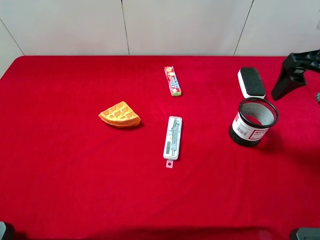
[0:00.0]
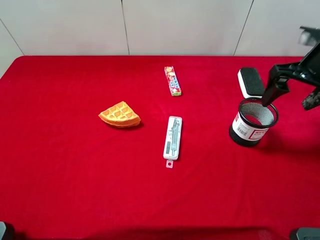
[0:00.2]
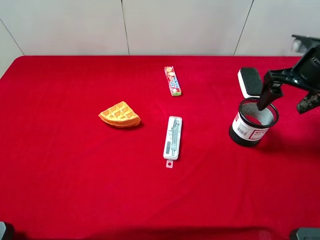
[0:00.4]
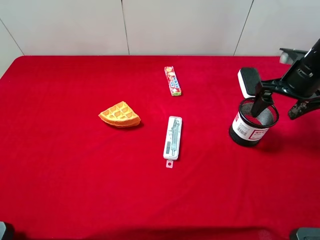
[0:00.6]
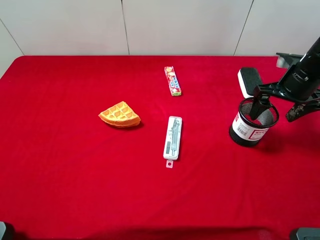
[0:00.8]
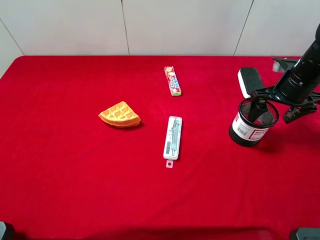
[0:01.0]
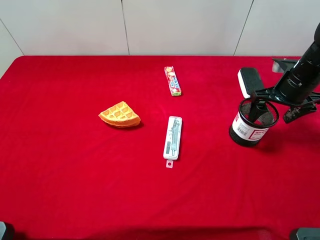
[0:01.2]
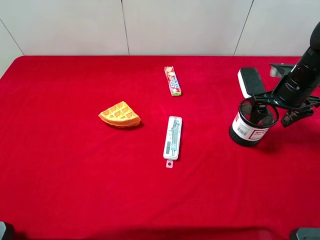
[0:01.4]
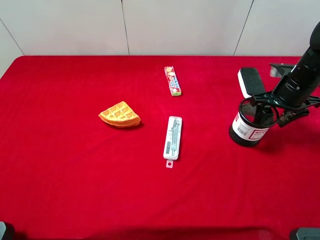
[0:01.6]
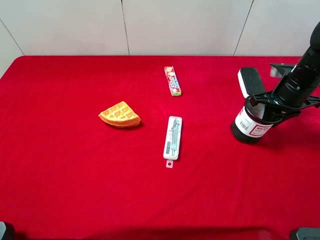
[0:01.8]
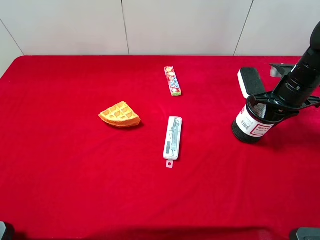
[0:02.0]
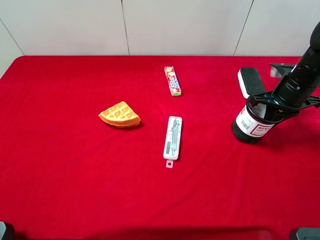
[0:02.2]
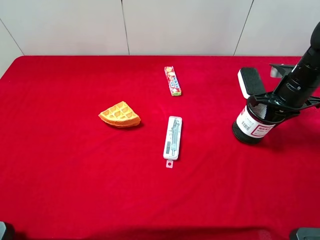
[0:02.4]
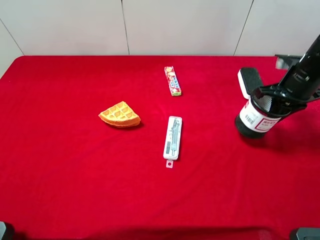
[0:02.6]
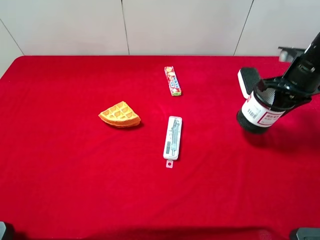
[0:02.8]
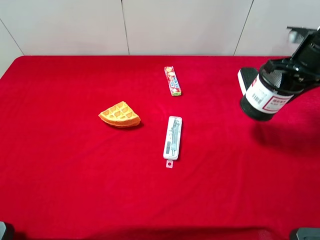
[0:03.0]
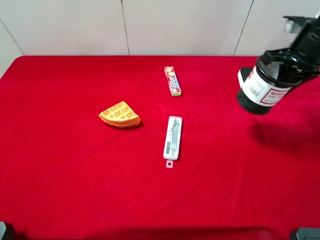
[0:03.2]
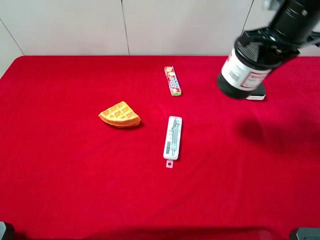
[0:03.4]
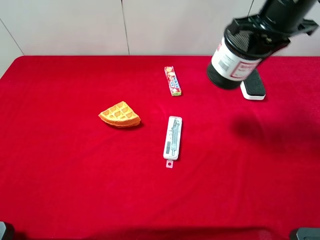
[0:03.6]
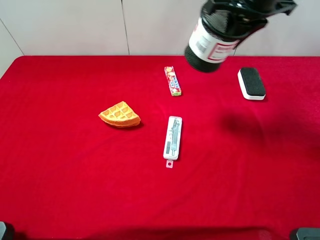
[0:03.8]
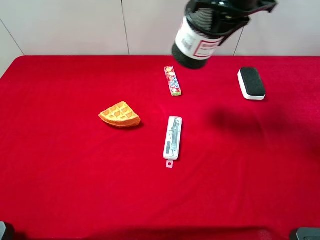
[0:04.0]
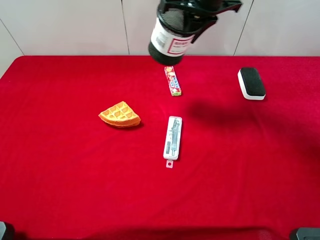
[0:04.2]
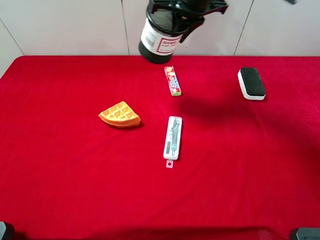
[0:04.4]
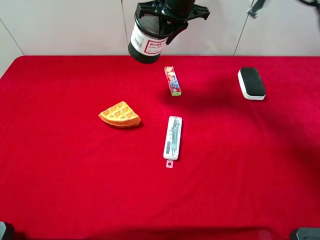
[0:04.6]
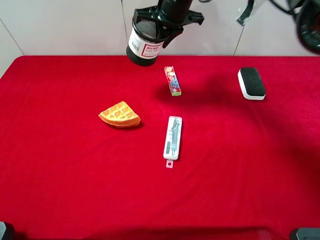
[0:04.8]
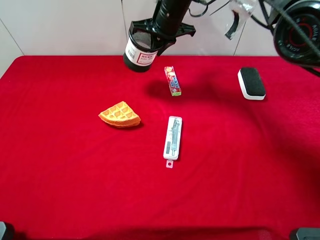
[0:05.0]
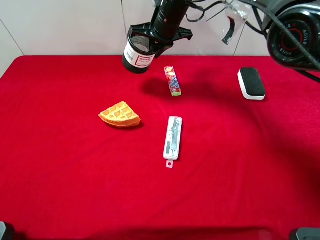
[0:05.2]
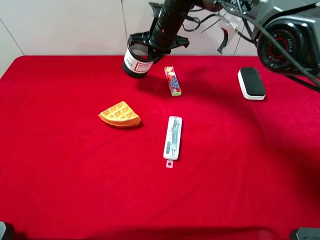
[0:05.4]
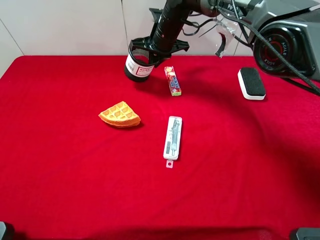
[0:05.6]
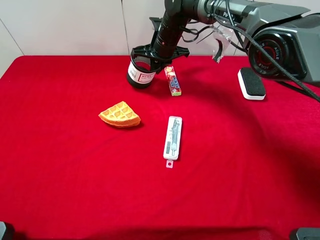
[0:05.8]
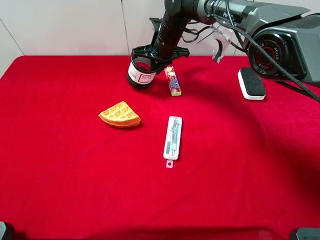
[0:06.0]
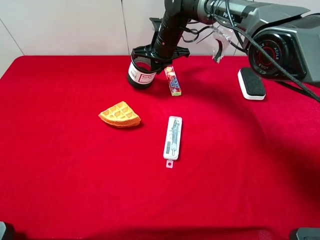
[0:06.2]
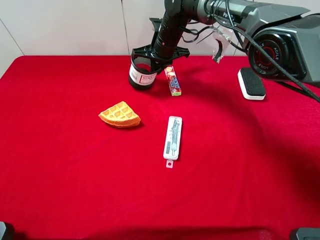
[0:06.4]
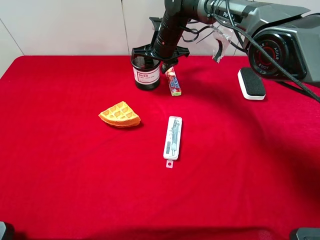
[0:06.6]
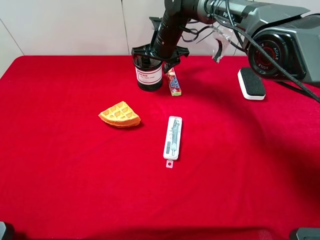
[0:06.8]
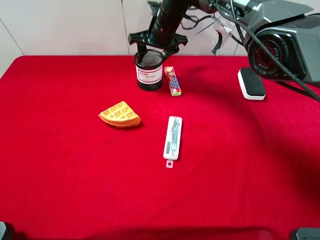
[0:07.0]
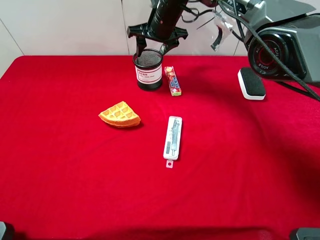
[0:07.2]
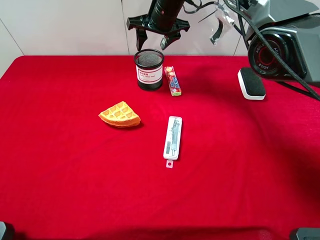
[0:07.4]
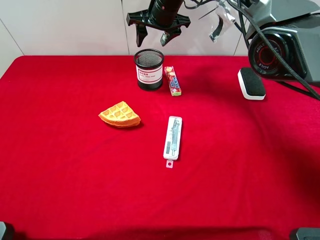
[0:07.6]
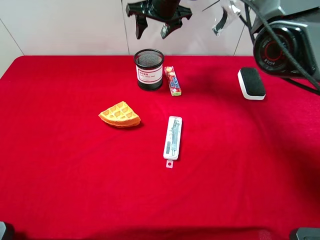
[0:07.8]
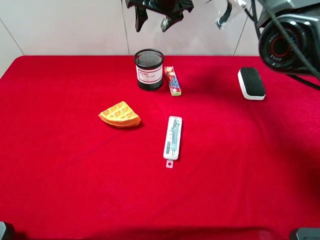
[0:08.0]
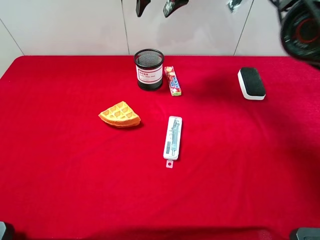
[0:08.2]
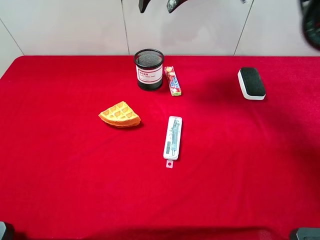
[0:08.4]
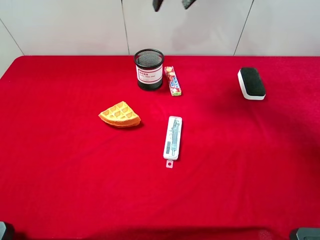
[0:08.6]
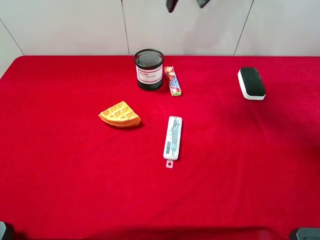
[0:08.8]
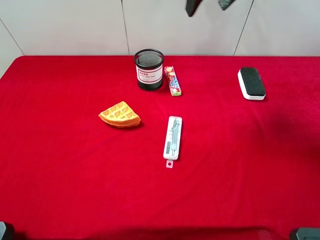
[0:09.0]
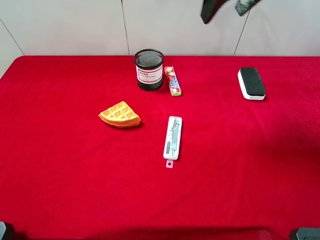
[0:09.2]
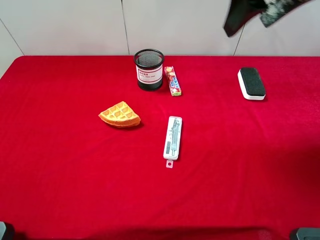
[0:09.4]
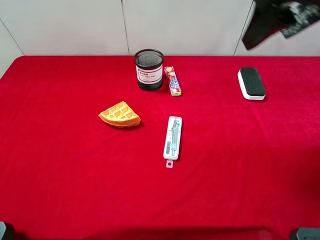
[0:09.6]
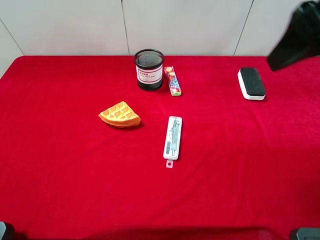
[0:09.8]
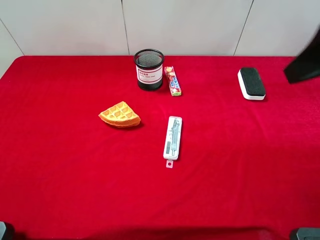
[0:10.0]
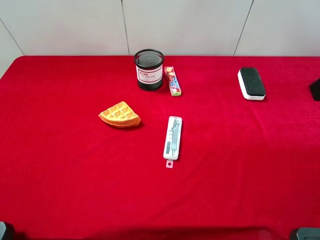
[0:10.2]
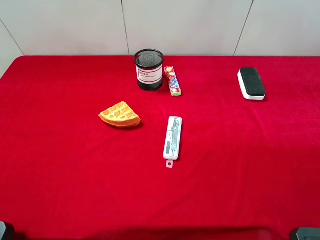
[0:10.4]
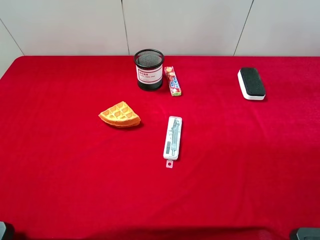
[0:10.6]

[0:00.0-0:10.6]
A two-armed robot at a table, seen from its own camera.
Task of the whole recording: the gripper move the object.
Step, 0:00.0 to 0:02.0: Grasp the pen container with the right gripper.
Step, 0:02.2 to 0:07.6: Place the pen container on the table with the right gripper.
0:00.0 to 0:01.6: The right gripper shifts some 15 cm downward and forward, and closes up.
0:01.6 to 0:03.0: The right gripper is displaced upward by about 10 cm, and closes up.
0:03.0 to 0:04.6: The right gripper goes about 25 cm to the left and forward.
0:04.6 to 0:06.0: The right gripper shifts about 10 cm downward.
0:06.0 to 0:07.6: The right gripper moves upward, roughly 10 cm, and opens its fingers.
0:07.6 to 0:09.0: The right gripper shifts roughly 25 cm upward, backward and to the right.
0:09.0 to 0:10.6: The right gripper shifts roughly 30 cm backward and to the right.

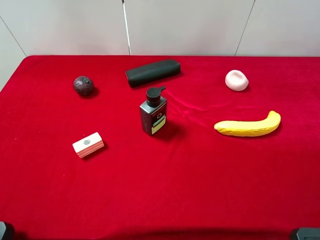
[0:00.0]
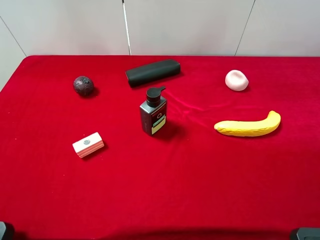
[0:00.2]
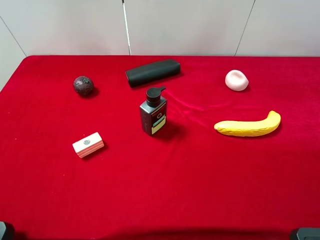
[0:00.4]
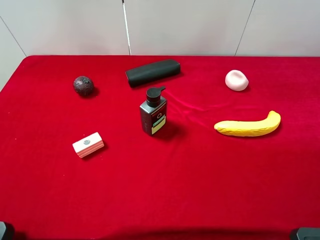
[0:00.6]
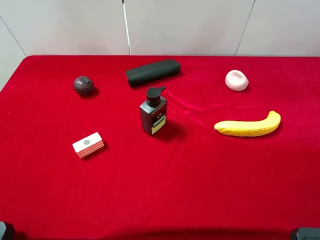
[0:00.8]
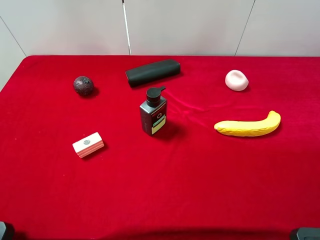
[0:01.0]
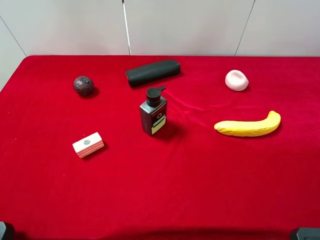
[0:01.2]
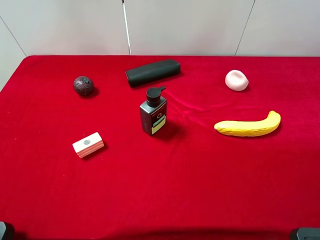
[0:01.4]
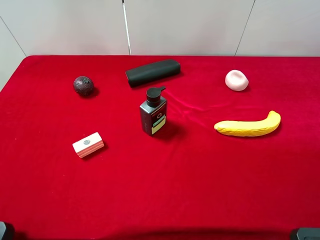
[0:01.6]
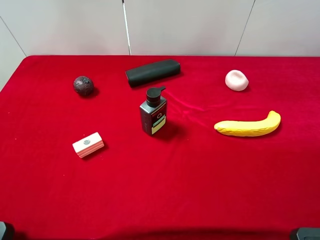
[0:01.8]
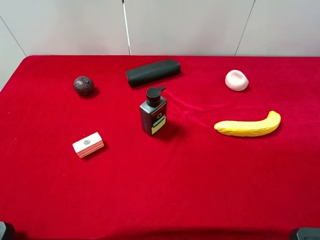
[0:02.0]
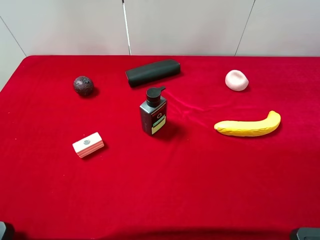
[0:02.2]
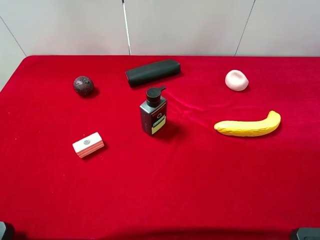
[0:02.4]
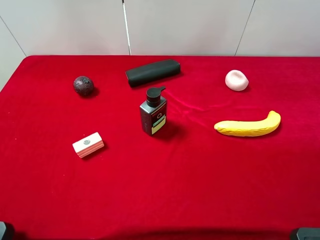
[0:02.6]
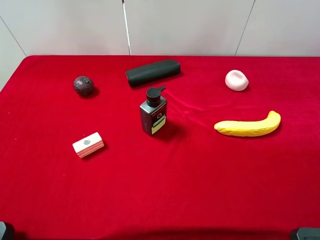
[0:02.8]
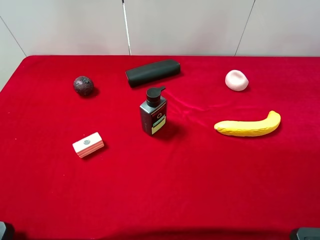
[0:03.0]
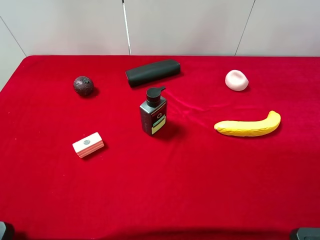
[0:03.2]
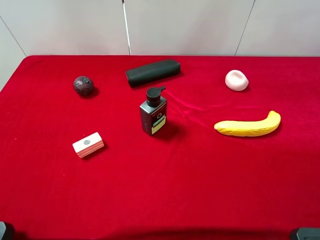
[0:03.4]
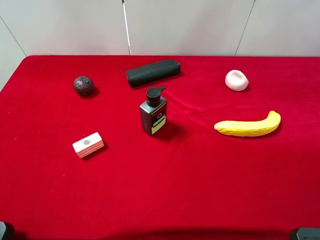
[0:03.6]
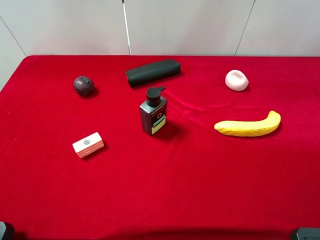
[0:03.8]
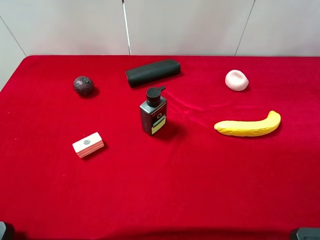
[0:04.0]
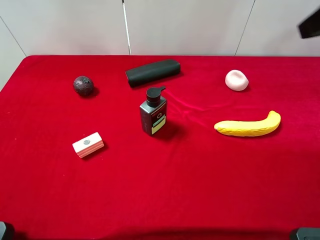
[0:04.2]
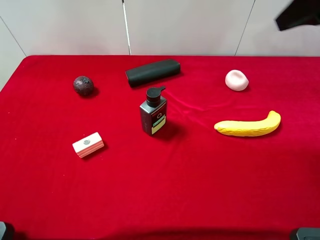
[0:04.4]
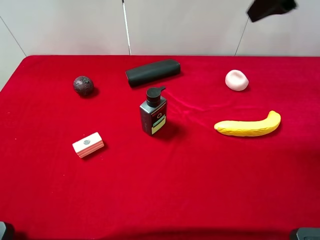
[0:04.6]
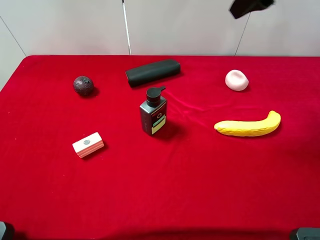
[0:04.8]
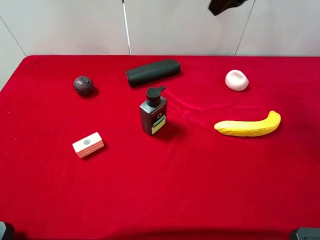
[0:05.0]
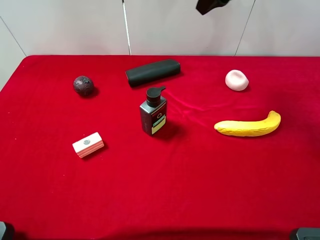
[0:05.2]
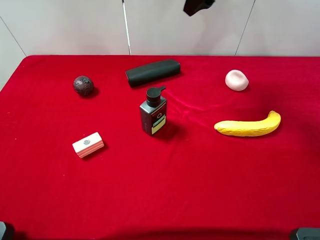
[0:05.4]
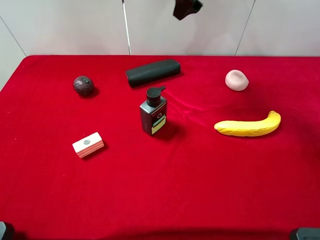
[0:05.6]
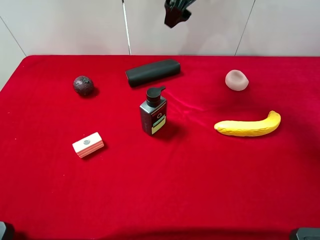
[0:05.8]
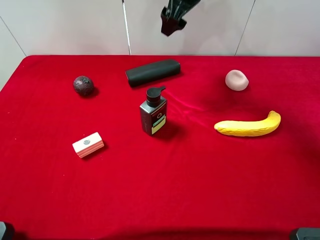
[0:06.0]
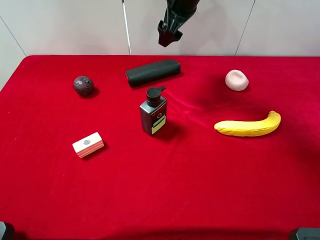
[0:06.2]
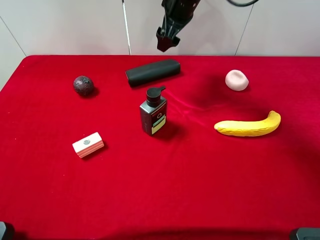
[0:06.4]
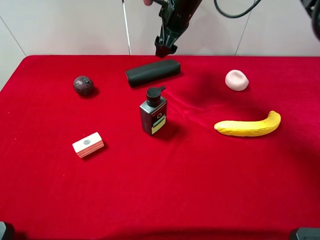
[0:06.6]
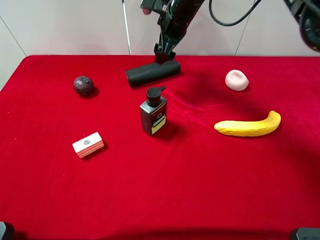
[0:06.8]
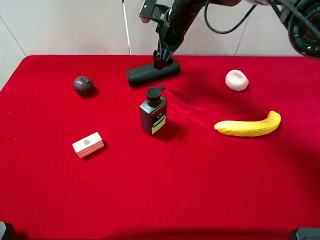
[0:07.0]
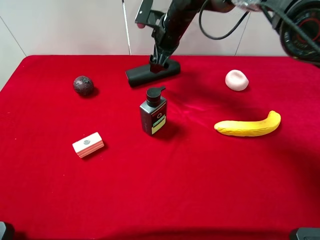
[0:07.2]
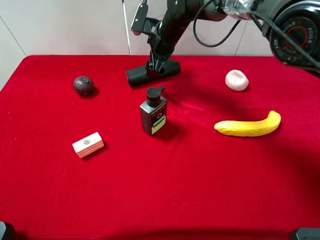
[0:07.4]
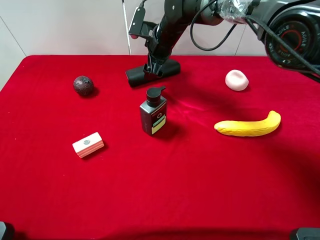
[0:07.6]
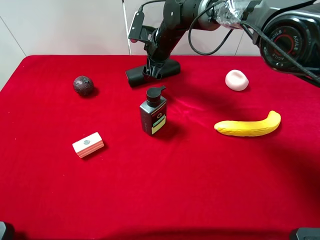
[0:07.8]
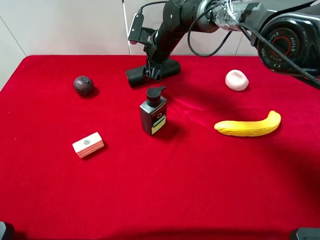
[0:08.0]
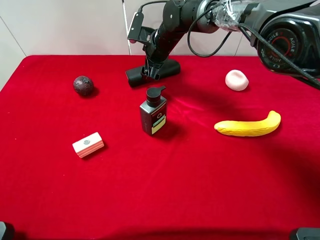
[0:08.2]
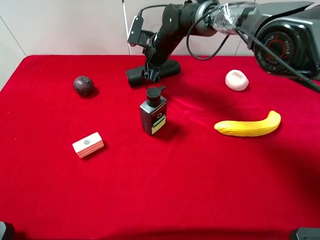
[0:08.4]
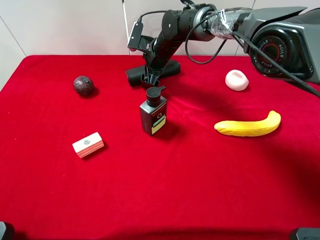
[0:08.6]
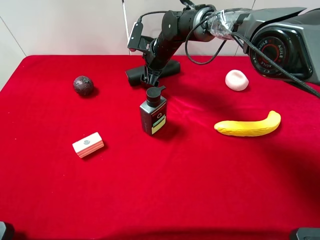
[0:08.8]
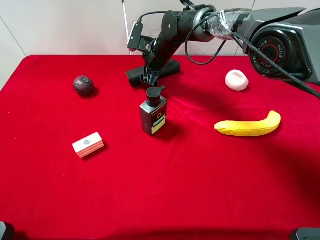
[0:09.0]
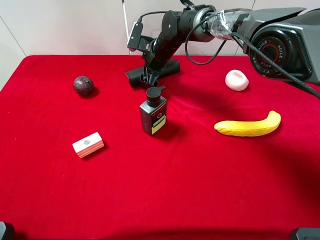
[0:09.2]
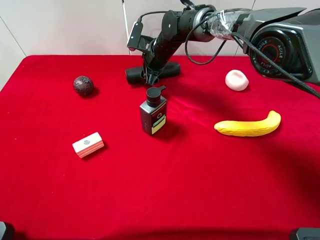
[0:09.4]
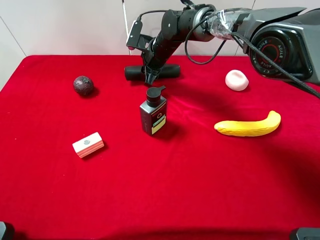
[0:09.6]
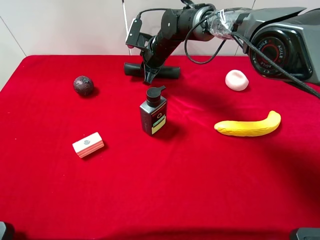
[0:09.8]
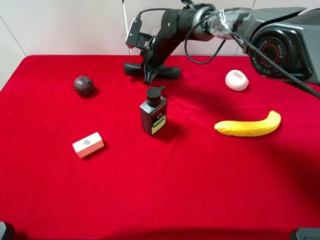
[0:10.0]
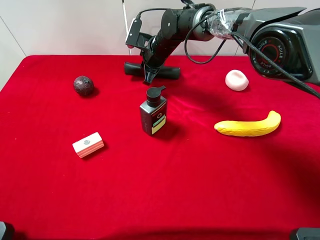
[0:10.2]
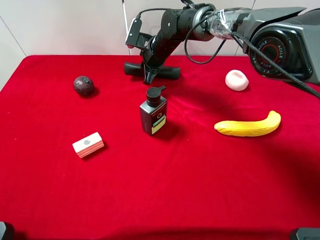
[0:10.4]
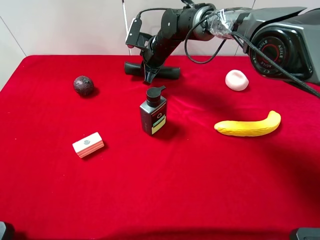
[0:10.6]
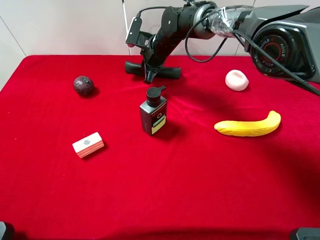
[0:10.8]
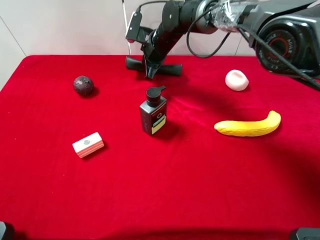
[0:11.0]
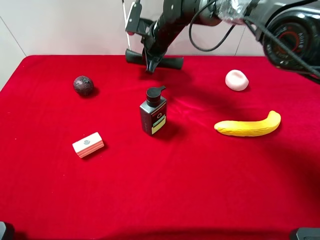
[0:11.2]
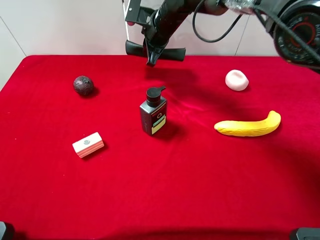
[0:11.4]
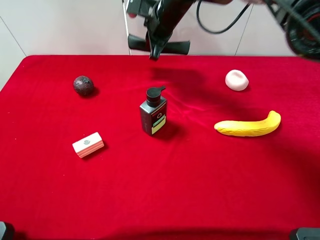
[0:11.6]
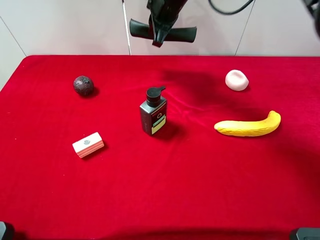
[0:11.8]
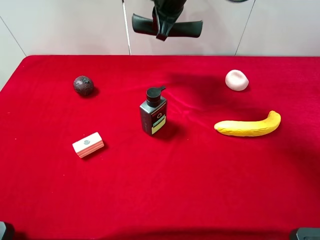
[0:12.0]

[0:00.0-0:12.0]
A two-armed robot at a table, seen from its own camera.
Task of the whole recording: the gripper move the object.
Step, 0:00.0 to 0:10.0: Grasp the eyeglass case with the right gripper.
0:00.0 to 0:01.6: Neither gripper changes place.
0:03.0 to 0:04.4: The right gripper travels forward by roughly 25 cm.
0:04.4 to 0:06.0: The right gripper goes approximately 25 cm to the left, forward and downward.
0:06.0 to 0:07.6: The right gripper goes about 15 cm downward.
0:07.6 to 0:09.0: The grippers make only small movements.
0:09.0 to 0:10.4: The right gripper closes.
0:10.4 to 0:12.0: The right gripper moves upward, roughly 15 cm.
